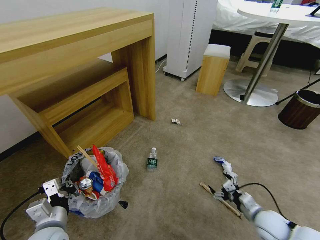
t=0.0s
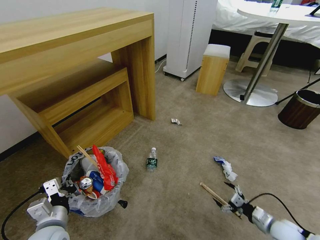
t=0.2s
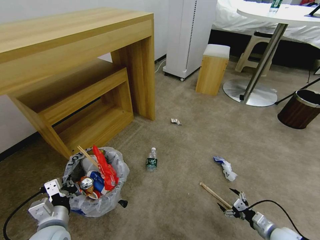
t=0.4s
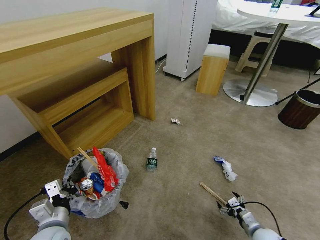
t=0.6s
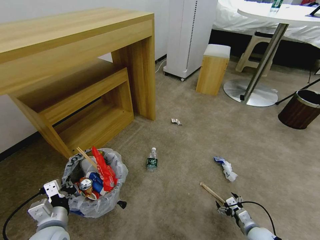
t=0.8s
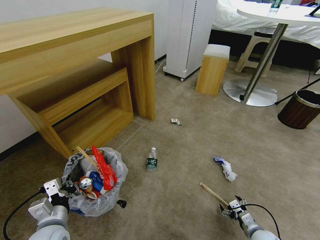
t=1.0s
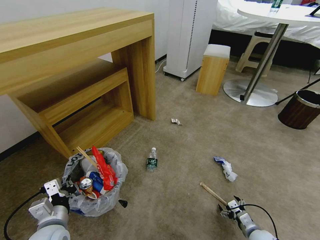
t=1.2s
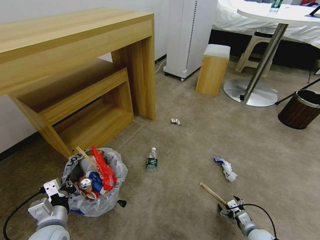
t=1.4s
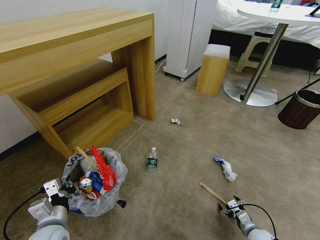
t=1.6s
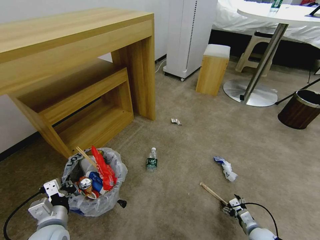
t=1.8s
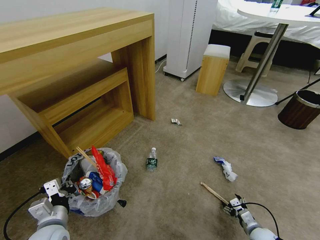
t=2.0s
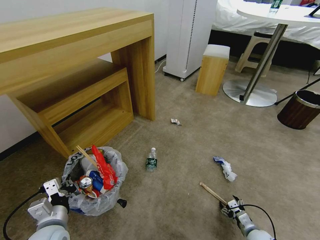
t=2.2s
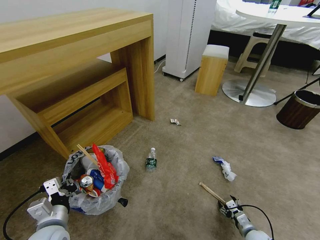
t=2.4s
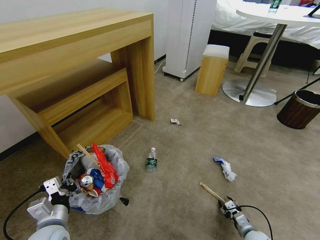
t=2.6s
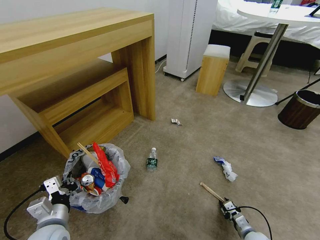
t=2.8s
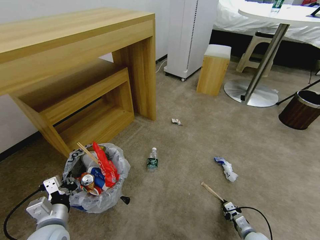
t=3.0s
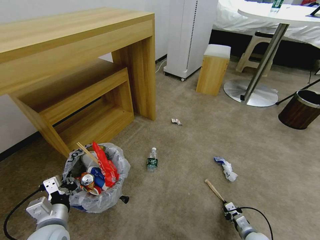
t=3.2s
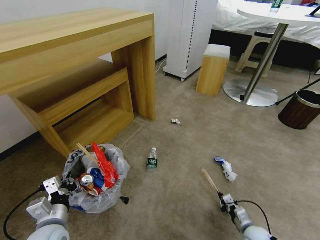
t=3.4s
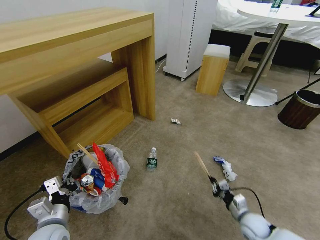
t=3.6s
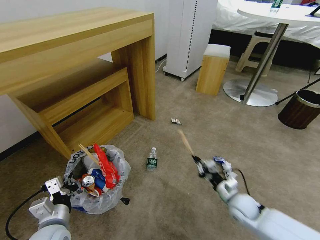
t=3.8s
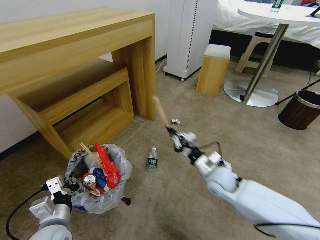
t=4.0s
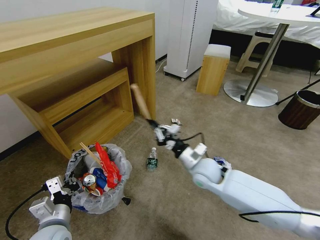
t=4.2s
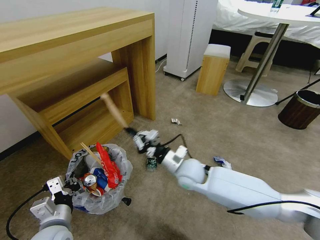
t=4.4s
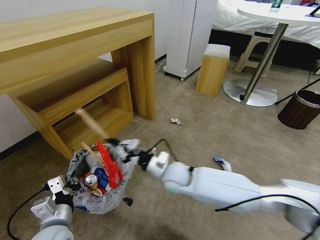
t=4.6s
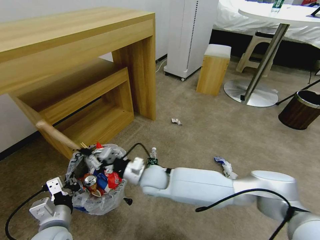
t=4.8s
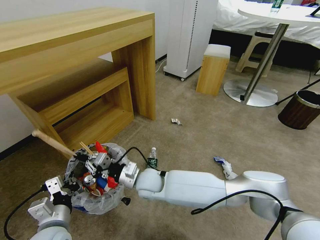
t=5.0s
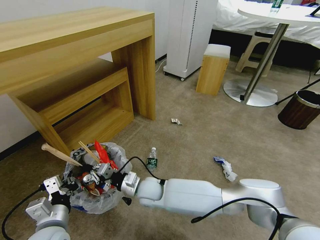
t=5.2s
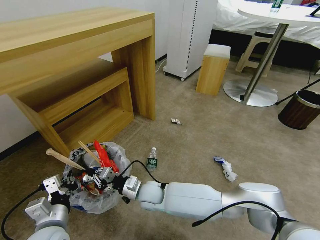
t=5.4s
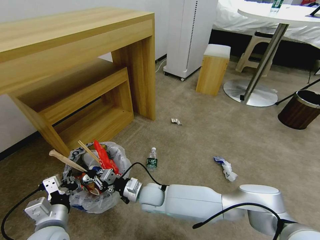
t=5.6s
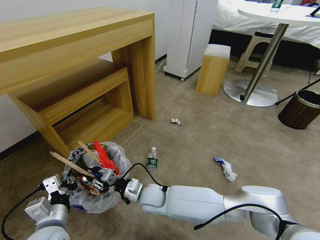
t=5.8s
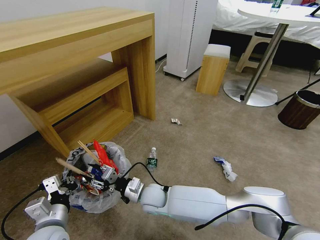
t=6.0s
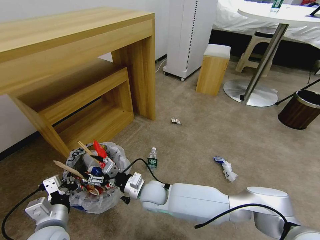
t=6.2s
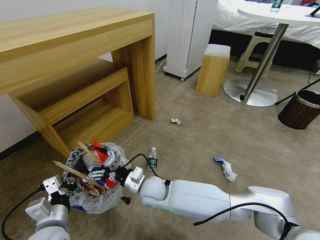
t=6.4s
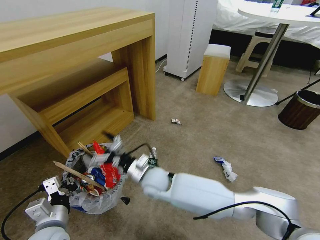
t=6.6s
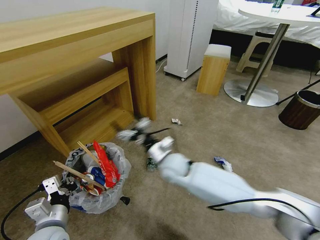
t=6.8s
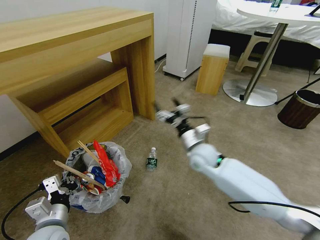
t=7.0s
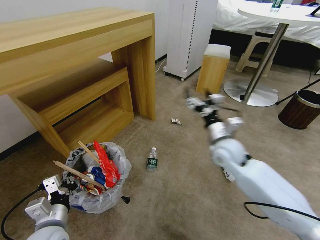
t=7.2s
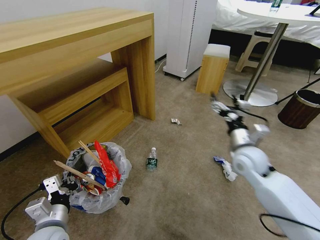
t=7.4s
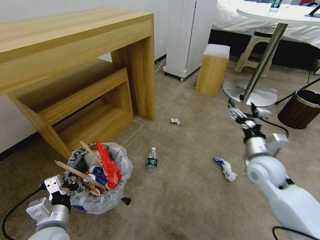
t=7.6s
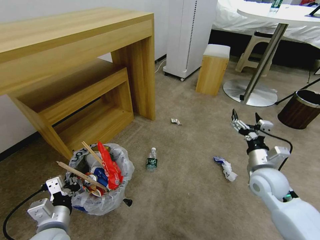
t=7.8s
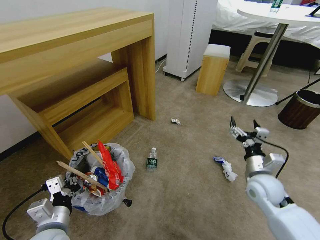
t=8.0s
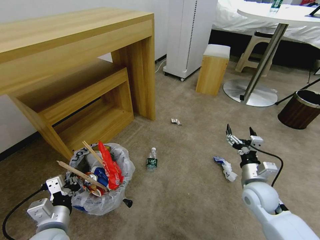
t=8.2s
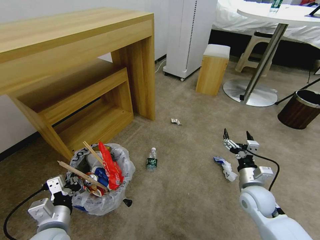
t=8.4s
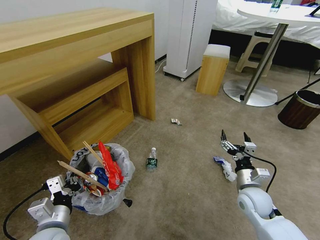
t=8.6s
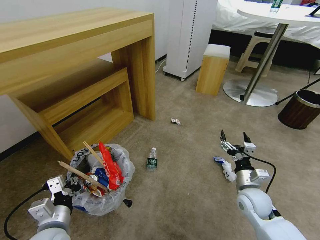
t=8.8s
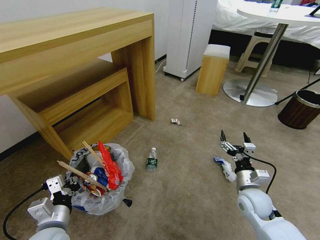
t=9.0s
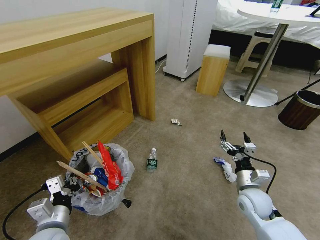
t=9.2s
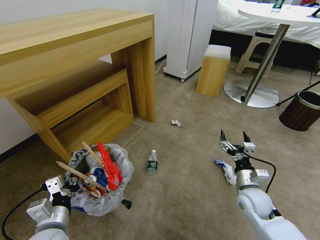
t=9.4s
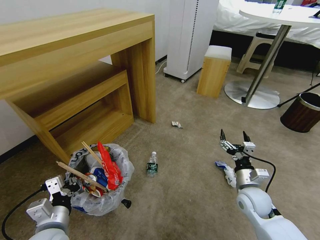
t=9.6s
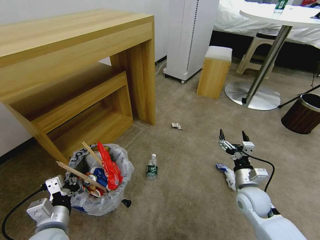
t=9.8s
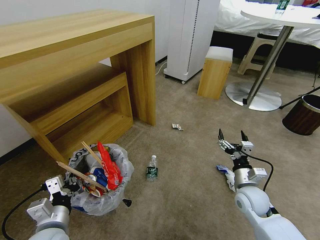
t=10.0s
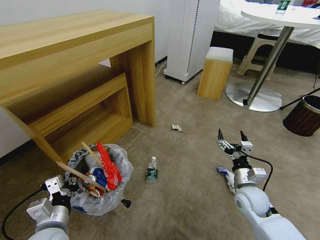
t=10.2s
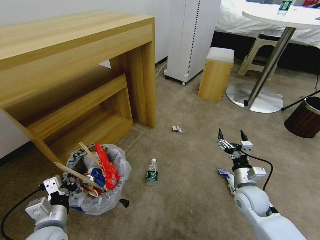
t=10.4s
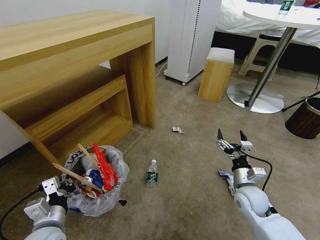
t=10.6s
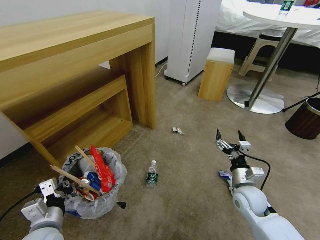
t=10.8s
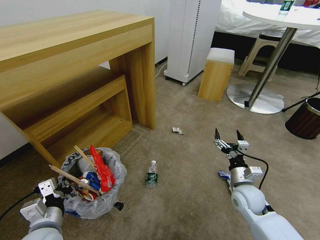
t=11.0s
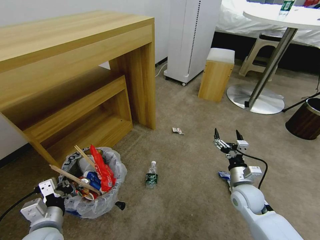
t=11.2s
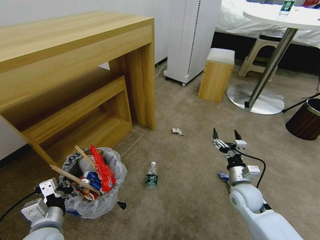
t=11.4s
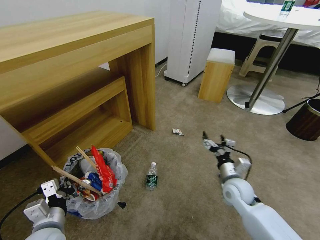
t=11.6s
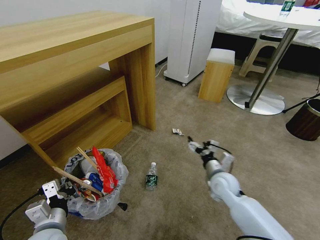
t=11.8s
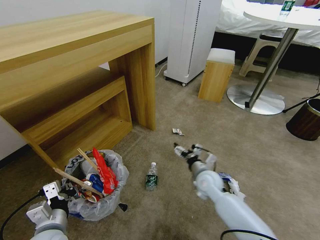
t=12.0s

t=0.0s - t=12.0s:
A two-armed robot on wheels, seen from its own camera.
Task of the whole recording: Pick up the trash bin and place the garbage on the floor into it.
t=0.0s - t=1.6s: The right gripper moves downward, some 15 cm.
t=1.6s - t=3.0s: The right gripper closes its fingers.
t=3.0s - t=4.4s: The right gripper moves to the left, upward and forward, approximately 40 cm.
t=4.4s - t=6.0s: The right gripper is displaced to the left and downward by some 15 cm, and opens up.
t=6.0s - t=7.6s: The right gripper goes roughly 40 cm to the right and upward, and opens its fingers.
t=7.6s - t=9.0s: The right gripper shifts roughly 15 cm downward and backward.
t=10.4s - t=12.0s: The right gripper heads to the left and forward, covering about 15 cm.

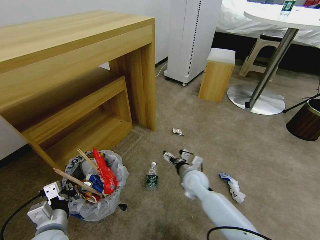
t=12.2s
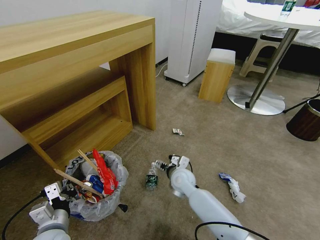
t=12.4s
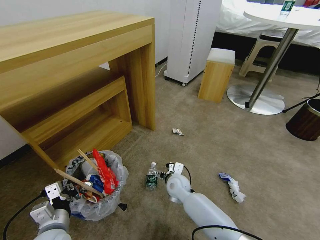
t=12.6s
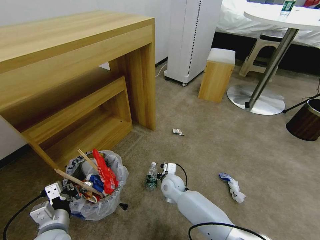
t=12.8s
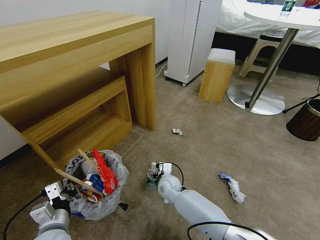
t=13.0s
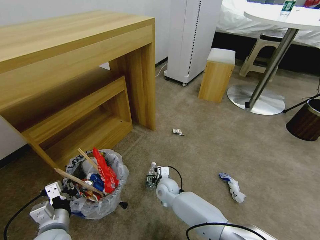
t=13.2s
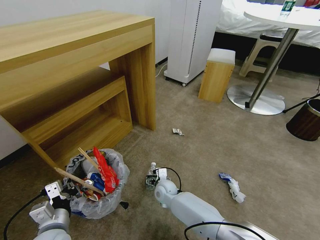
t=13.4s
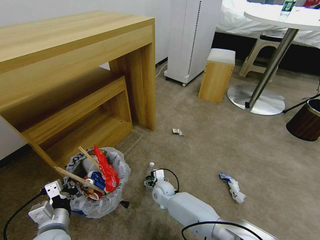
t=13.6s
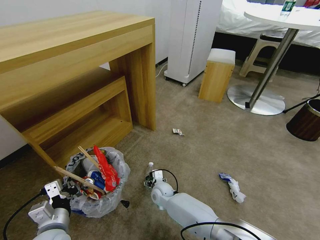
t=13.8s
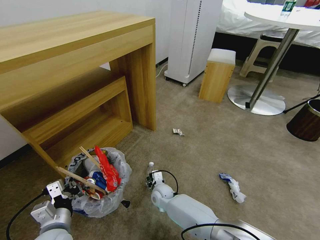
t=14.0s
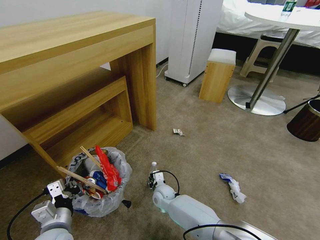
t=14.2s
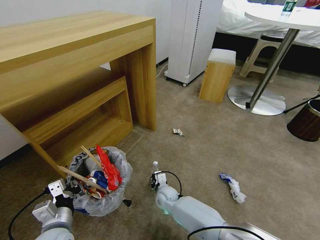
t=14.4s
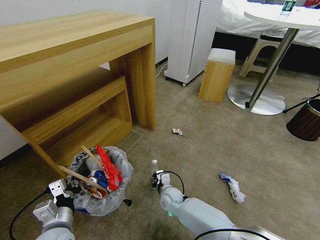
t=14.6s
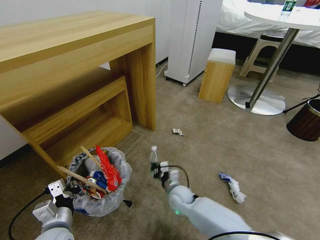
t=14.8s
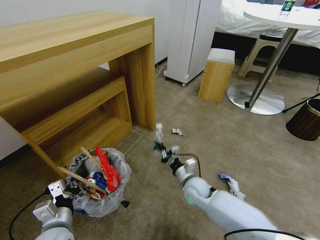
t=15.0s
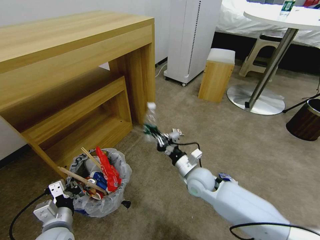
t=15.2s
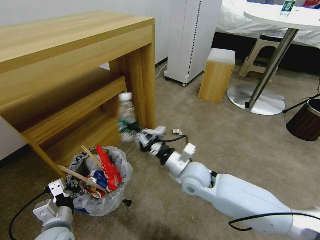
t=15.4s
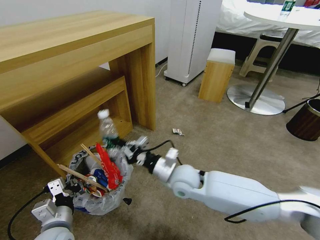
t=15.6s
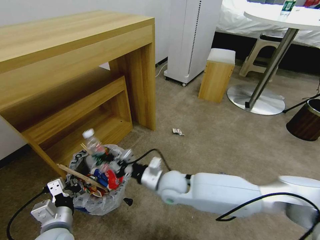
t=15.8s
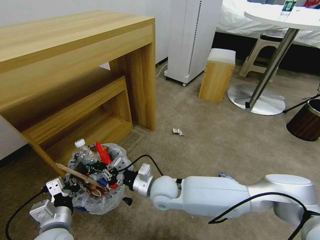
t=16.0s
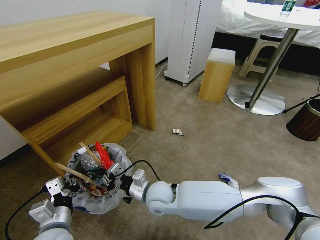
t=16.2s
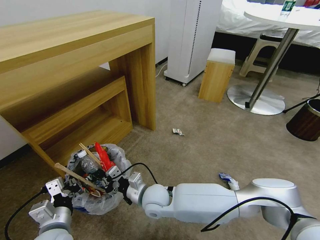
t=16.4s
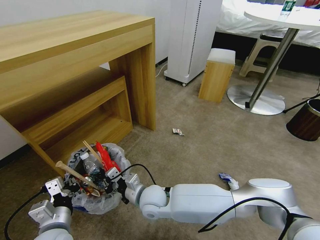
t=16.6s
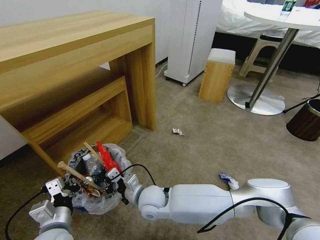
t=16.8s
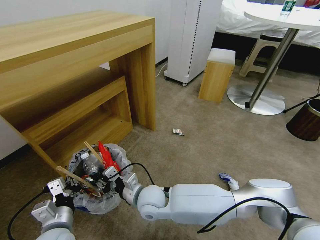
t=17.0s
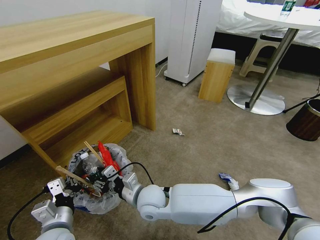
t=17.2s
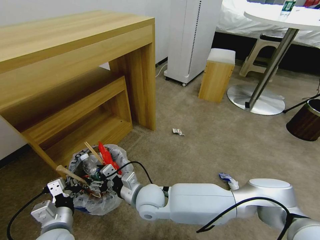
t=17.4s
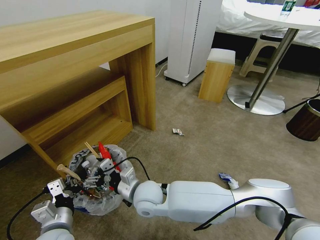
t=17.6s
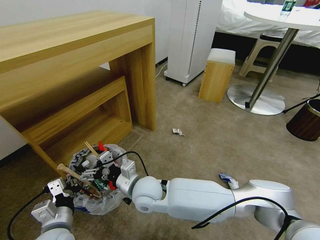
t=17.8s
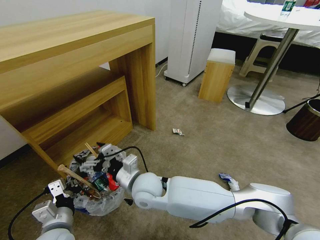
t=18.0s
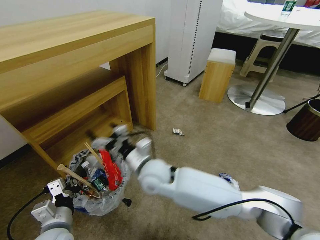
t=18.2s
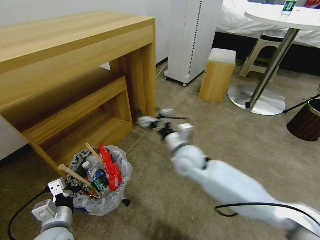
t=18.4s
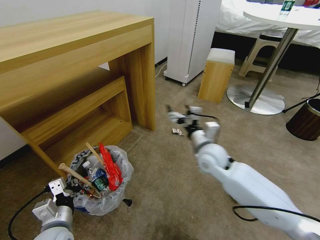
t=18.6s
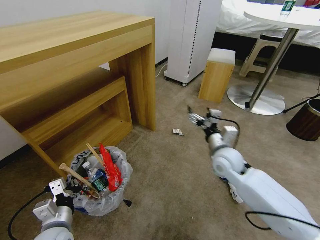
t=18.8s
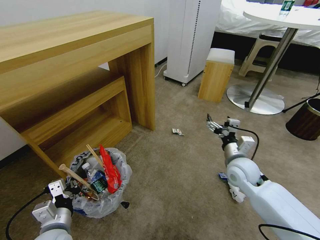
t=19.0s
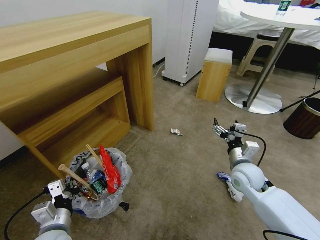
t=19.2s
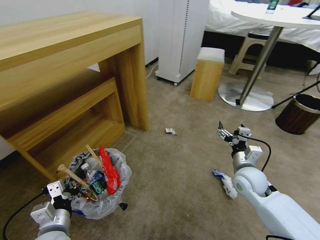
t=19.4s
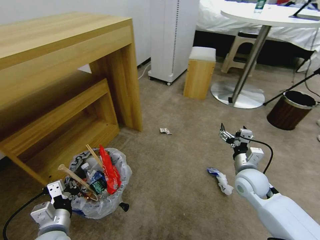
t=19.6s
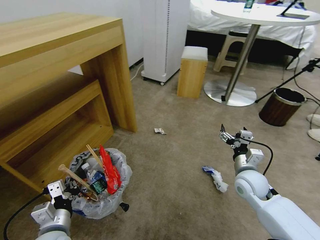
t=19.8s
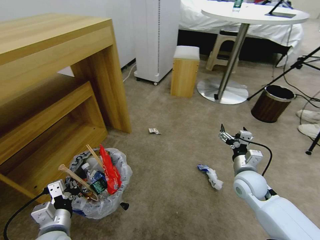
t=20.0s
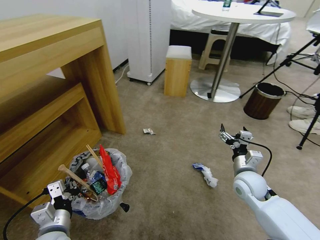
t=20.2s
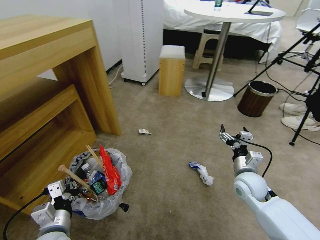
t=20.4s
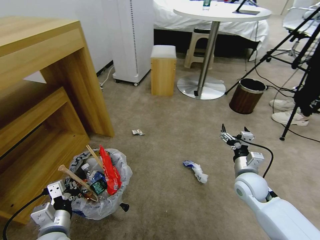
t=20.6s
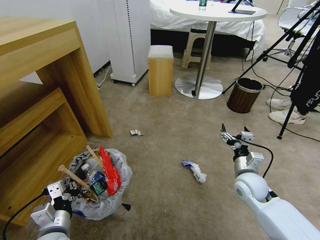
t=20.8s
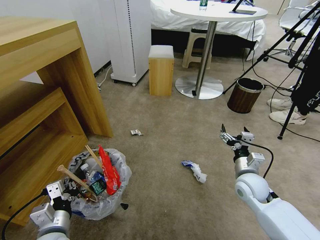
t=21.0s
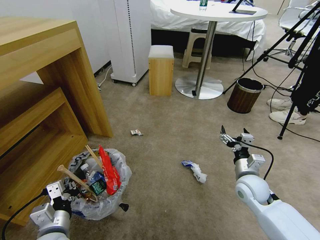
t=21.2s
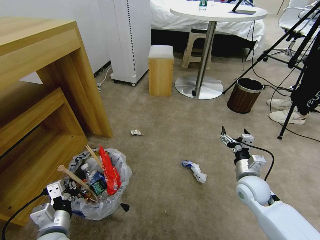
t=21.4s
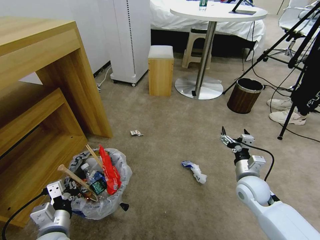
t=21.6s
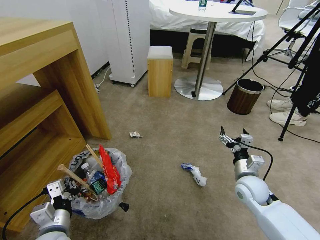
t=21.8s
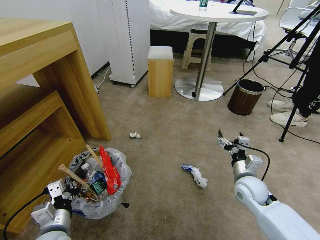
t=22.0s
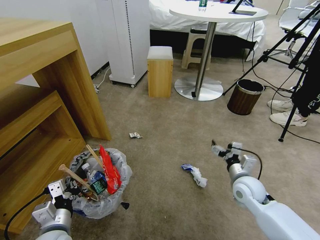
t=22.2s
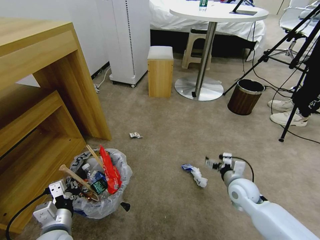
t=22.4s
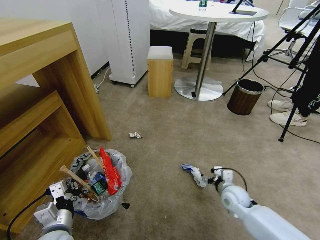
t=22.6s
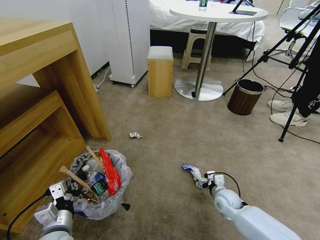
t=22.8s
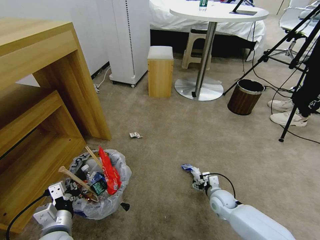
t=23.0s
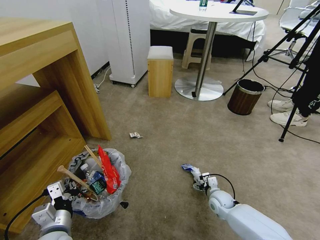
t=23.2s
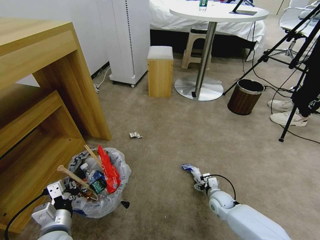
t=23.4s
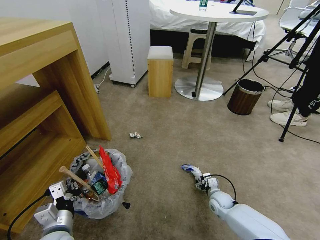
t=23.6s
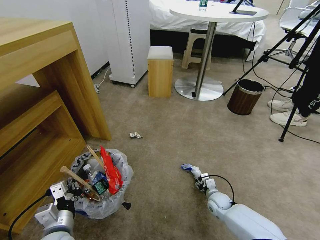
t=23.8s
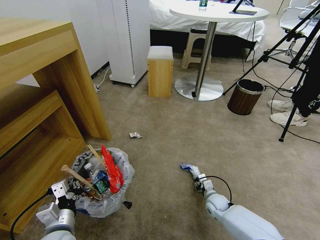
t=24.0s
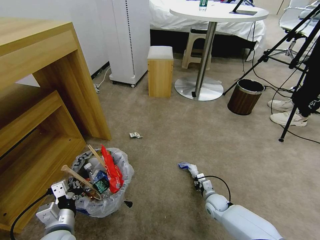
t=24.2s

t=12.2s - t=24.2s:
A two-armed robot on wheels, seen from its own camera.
Task of the whole recording: Pick up the trash bin and place the garbage on the floor into it.
t=12.2s - t=13.8s: The right gripper moves to the left and downward, approximately 15 cm.
t=13.8s - t=15.2s: The right gripper shifts some 20 cm upward and to the right, and closes its fingers.
t=15.2s - t=16.6s: The right gripper travels to the left by some 15 cm.
t=16.6s - t=18.2s: The right gripper shifts roughly 10 cm upward, and opens.
t=18.2s - t=19.8s: The right gripper shifts some 30 cm to the right.
t=21.2s - t=22.6s: The right gripper goes approximately 10 cm downward.
t=22.6s - t=24.2s: The right gripper is displaced downward by roughly 15 cm, and closes up.
